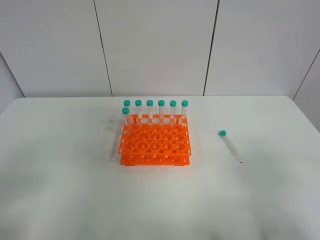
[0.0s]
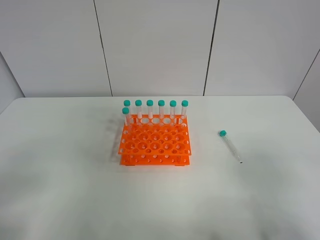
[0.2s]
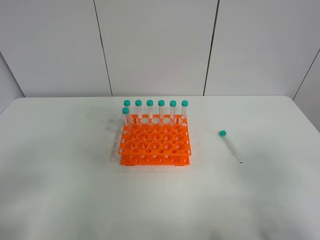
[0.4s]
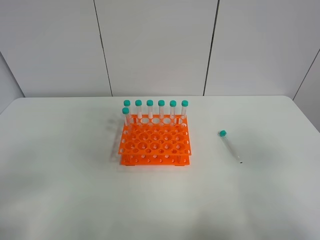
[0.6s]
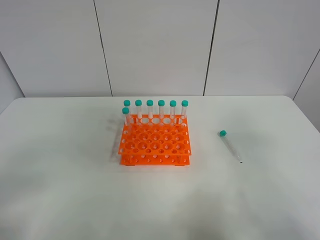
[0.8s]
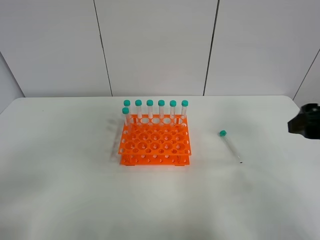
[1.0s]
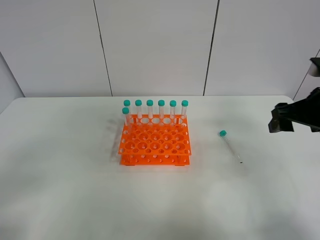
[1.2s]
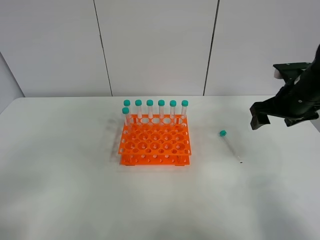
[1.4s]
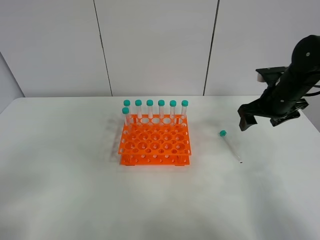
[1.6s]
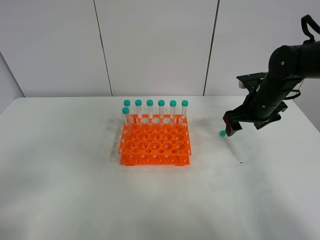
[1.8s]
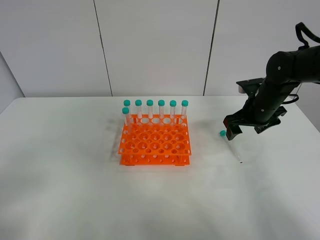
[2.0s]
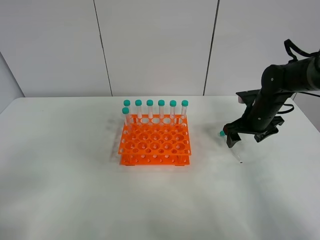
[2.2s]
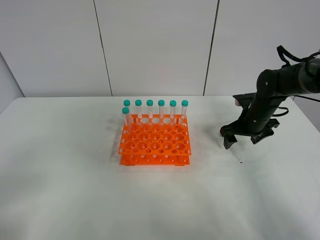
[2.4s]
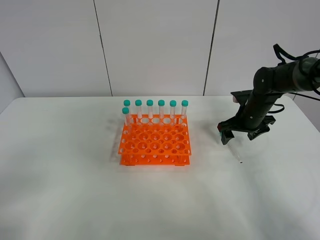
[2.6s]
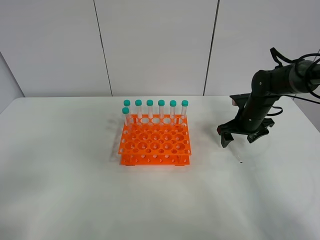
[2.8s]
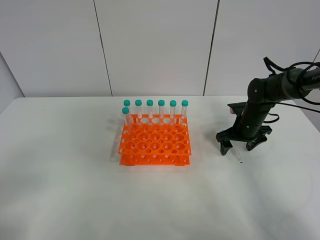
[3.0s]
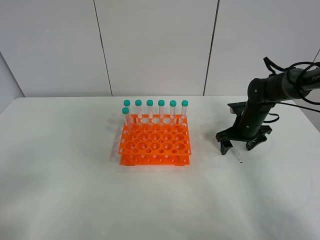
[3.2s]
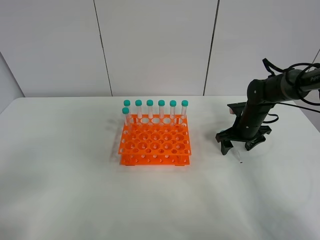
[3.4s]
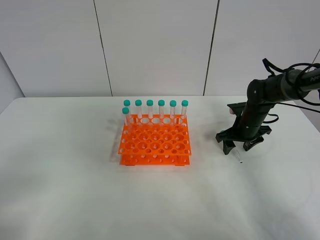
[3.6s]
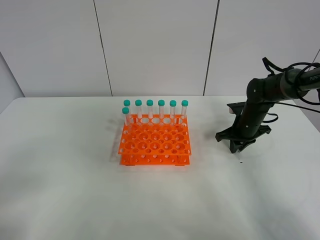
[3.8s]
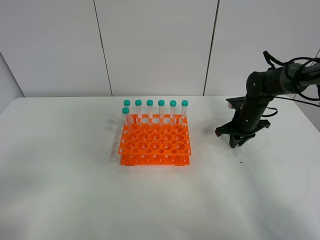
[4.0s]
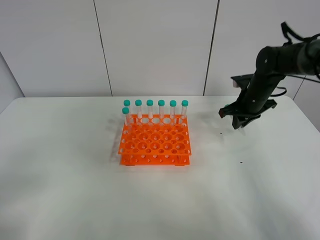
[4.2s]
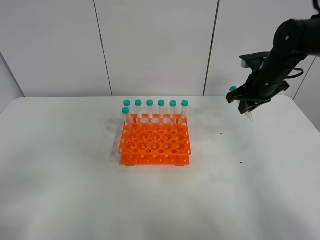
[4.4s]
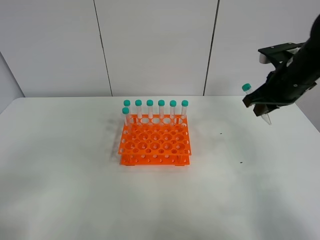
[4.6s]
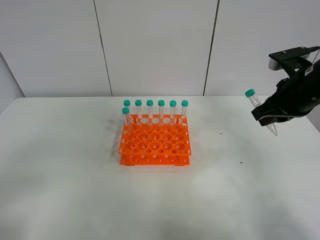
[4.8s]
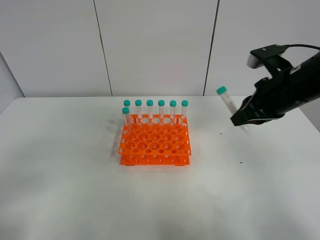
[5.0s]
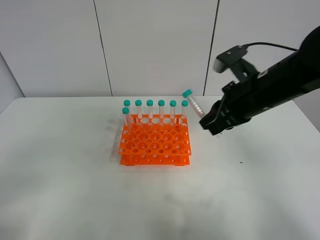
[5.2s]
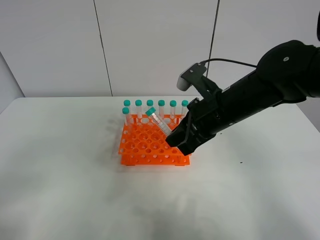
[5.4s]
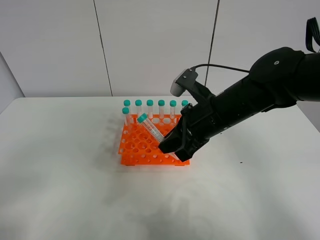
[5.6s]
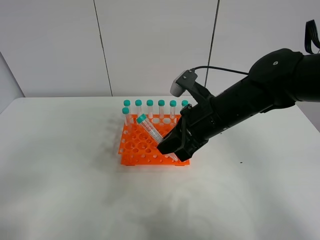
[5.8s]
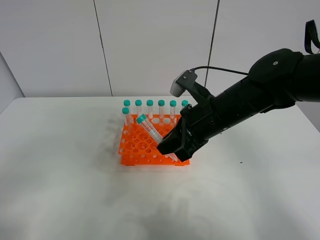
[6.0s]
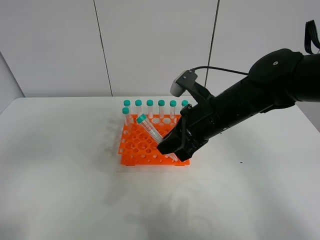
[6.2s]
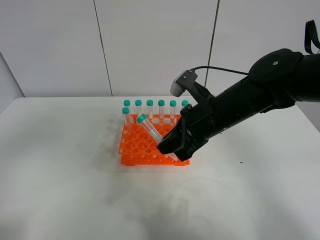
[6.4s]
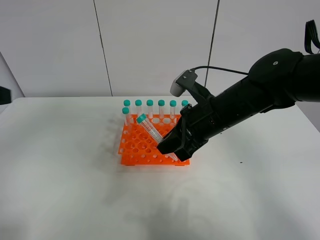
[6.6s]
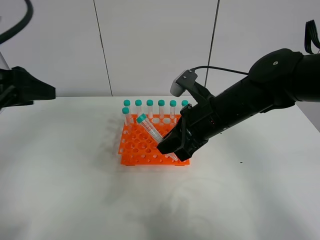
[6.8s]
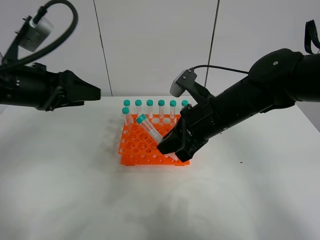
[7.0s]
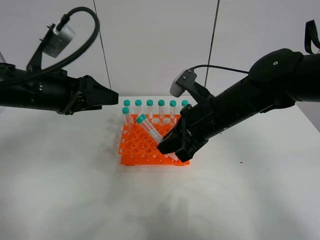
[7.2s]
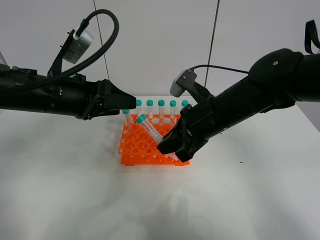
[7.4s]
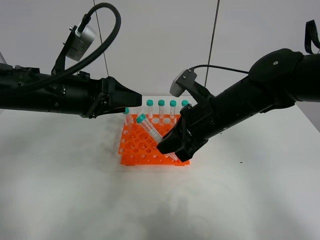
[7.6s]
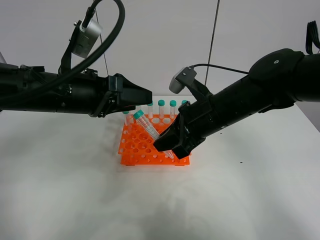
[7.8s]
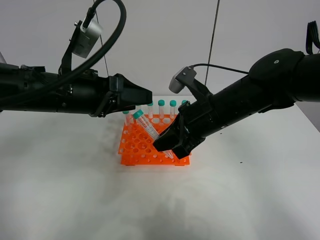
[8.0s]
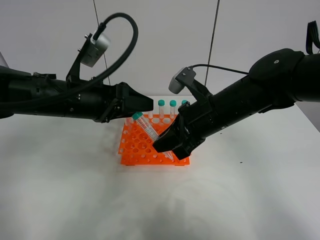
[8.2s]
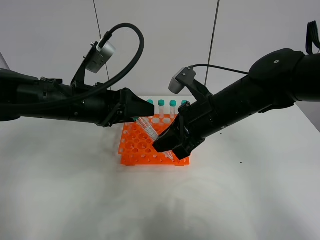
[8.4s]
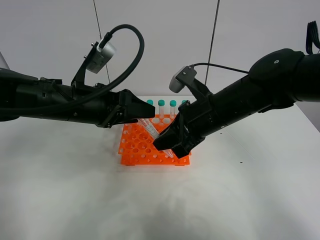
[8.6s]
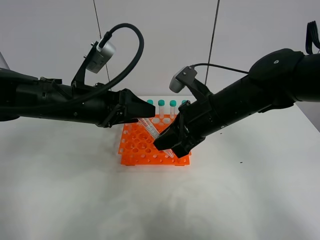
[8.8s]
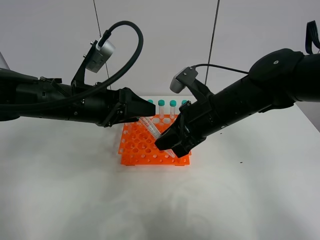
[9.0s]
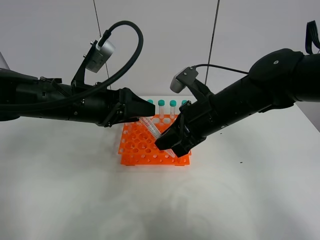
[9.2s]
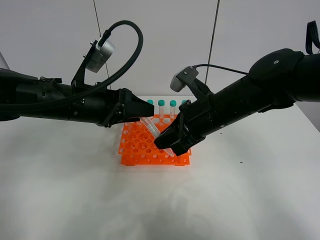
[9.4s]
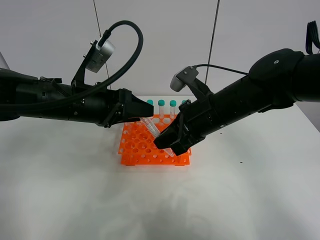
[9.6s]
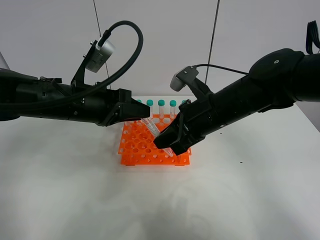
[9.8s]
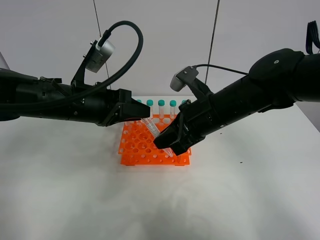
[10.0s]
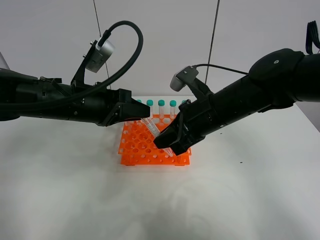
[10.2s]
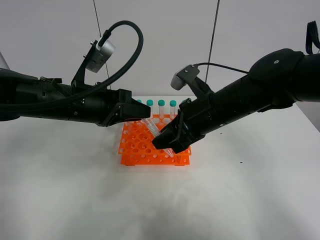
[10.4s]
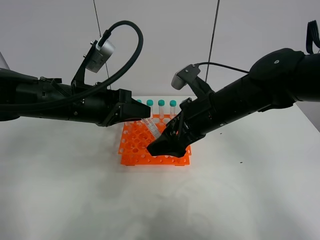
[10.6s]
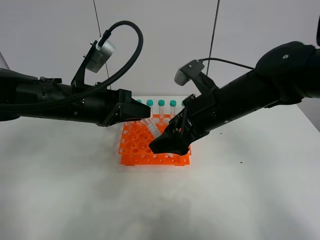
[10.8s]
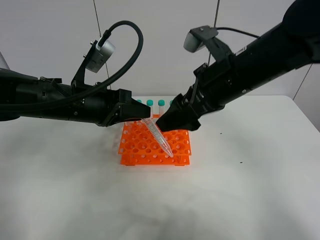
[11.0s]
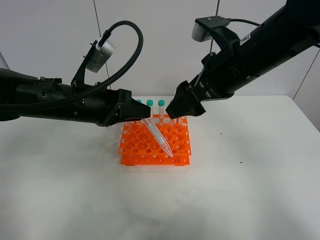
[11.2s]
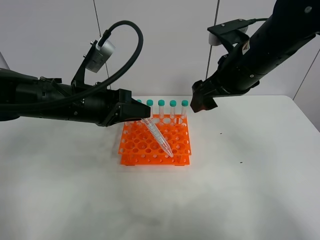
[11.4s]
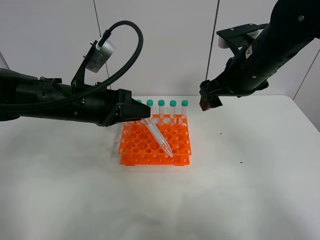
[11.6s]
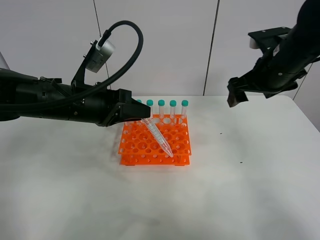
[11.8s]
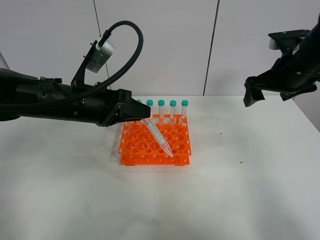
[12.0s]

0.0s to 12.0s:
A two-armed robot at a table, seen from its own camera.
Task of the whole recording: Put the test tube on the table back onto the test tube rack.
Step, 0.0s to 3.8s: Pick up the test tube with the right gripper.
Step, 4.0s to 10.6s: Move the test tube from the right gripper to the left gripper.
0.0s to 1.6s: The right gripper is displaced forward by roughly 35 cm.
1.6s to 3.0s: The right gripper moves downward, about 10 cm.
3.0s to 4.4s: The right gripper moves upward, about 15 cm, and closes its fingers.
4.4s to 6.0s: The right gripper heads to the left and backward, covering about 20 cm.
6.0s to 7.6s: The left gripper shifts about 30 cm forward and to the right.
7.6s to 9.0s: The grippers stay close to where they were, moving slightly.
9.0s to 10.4s: The right gripper opens its fingers. Meanwhile the left gripper closes.
10.4s to 12.0s: The right gripper moves to the right and forward, roughly 20 cm, and opens its fingers.

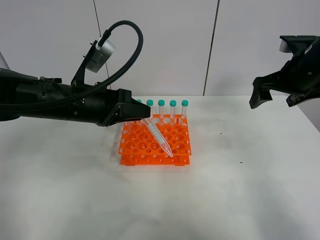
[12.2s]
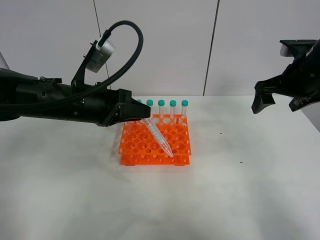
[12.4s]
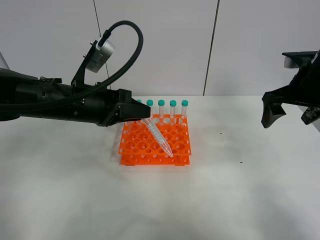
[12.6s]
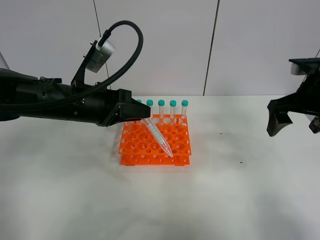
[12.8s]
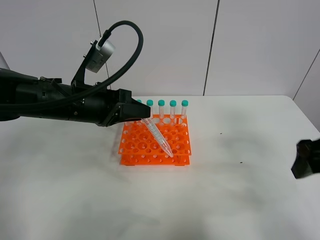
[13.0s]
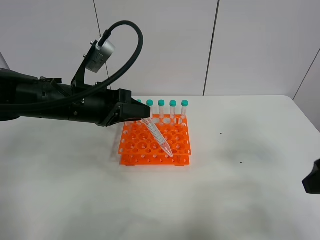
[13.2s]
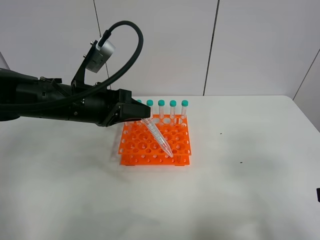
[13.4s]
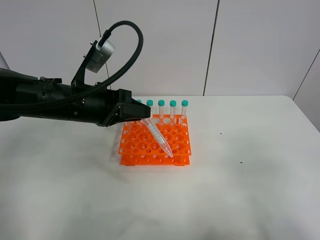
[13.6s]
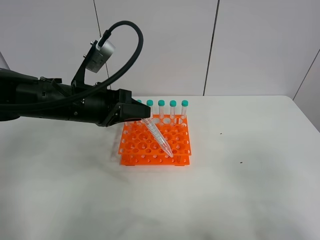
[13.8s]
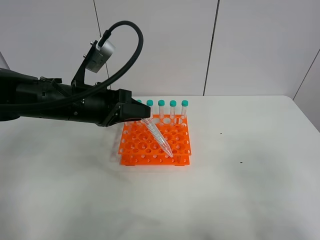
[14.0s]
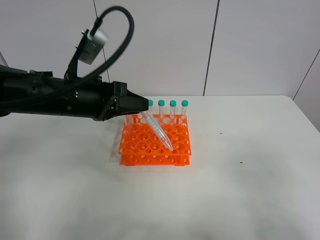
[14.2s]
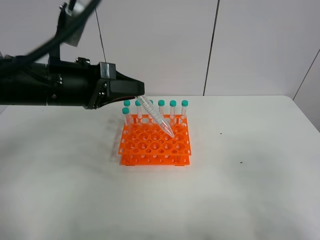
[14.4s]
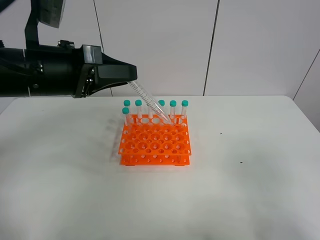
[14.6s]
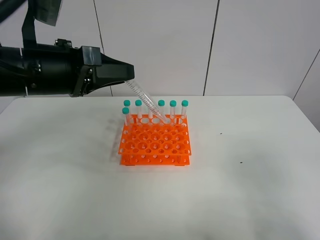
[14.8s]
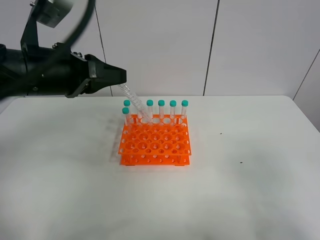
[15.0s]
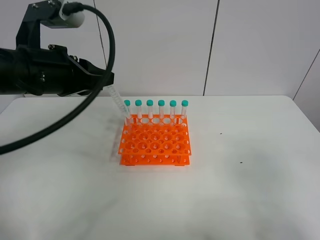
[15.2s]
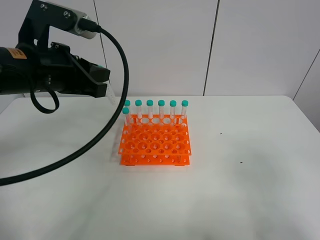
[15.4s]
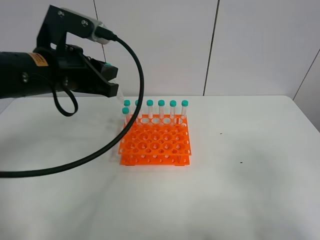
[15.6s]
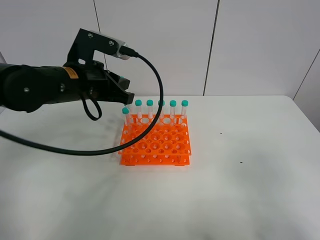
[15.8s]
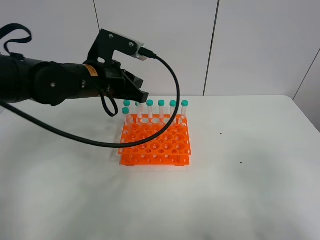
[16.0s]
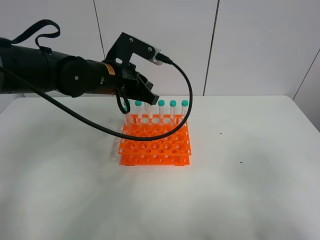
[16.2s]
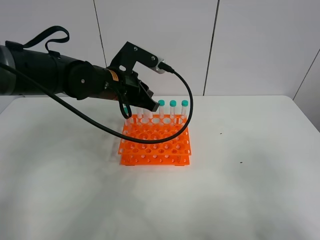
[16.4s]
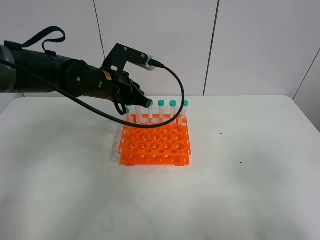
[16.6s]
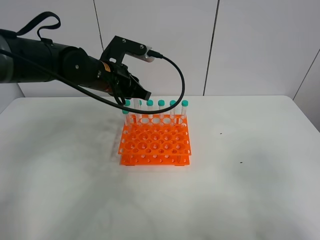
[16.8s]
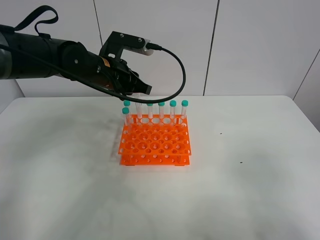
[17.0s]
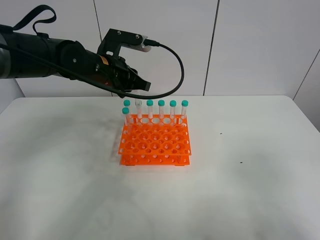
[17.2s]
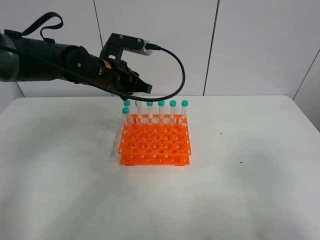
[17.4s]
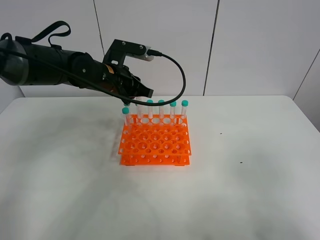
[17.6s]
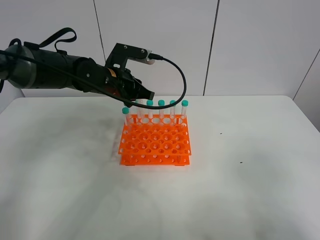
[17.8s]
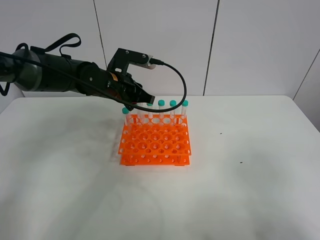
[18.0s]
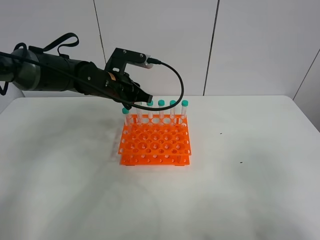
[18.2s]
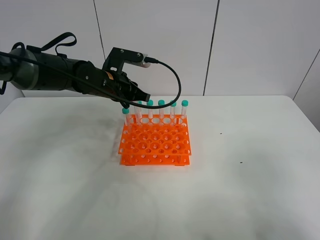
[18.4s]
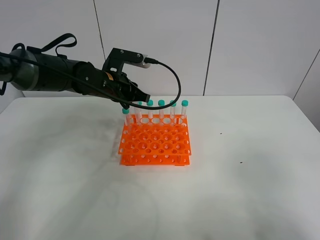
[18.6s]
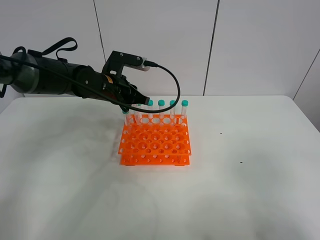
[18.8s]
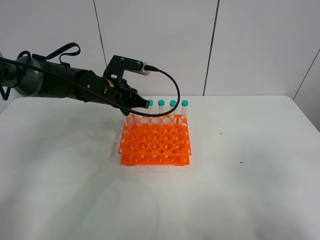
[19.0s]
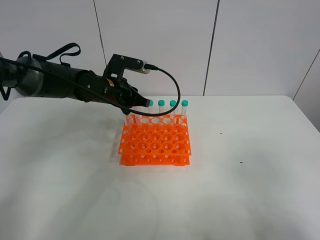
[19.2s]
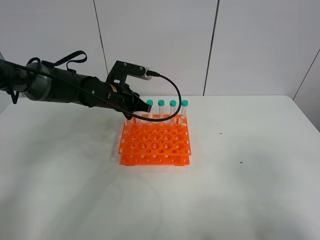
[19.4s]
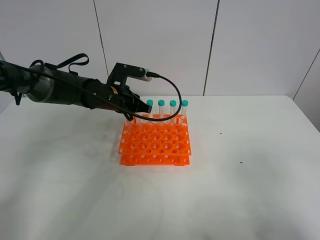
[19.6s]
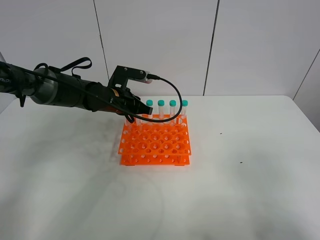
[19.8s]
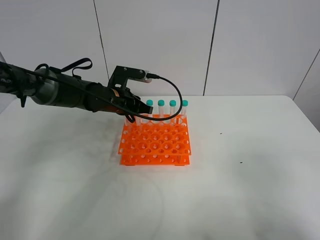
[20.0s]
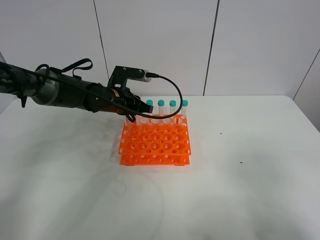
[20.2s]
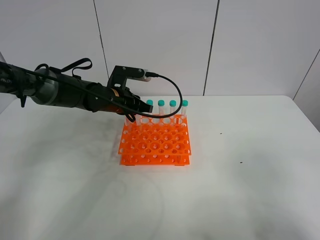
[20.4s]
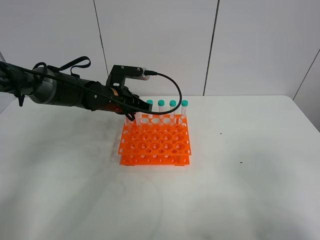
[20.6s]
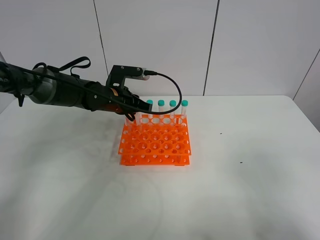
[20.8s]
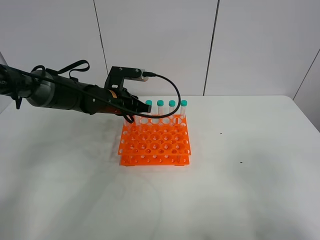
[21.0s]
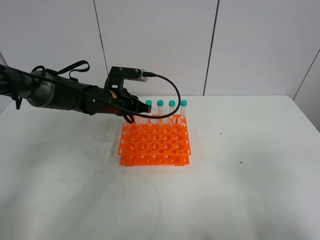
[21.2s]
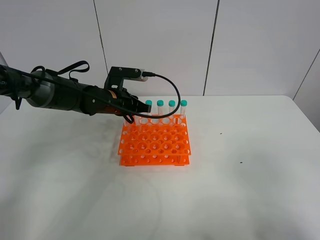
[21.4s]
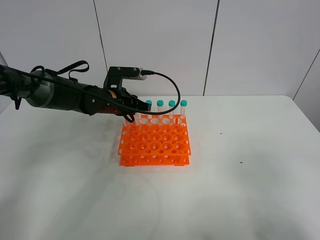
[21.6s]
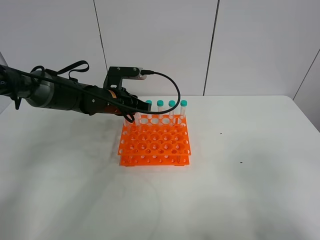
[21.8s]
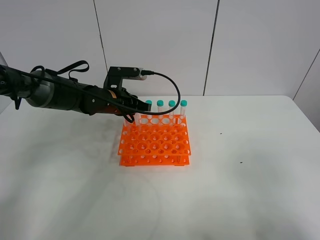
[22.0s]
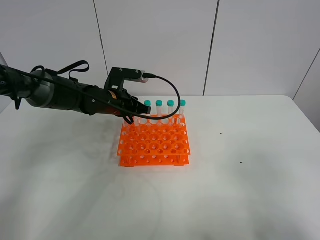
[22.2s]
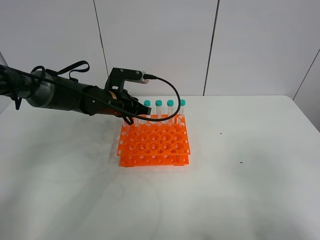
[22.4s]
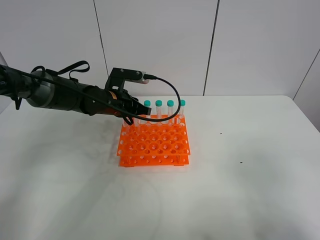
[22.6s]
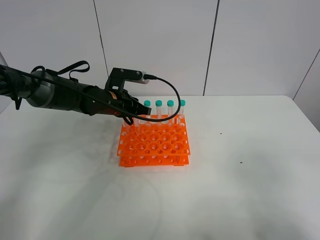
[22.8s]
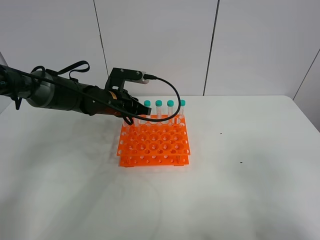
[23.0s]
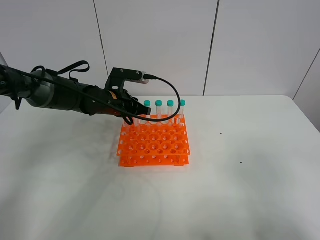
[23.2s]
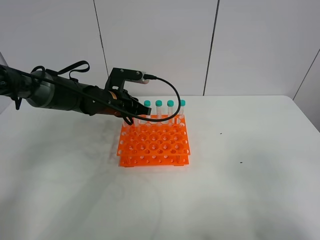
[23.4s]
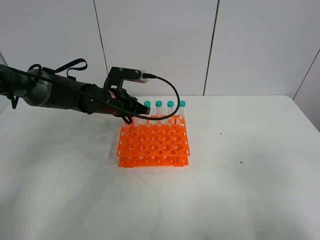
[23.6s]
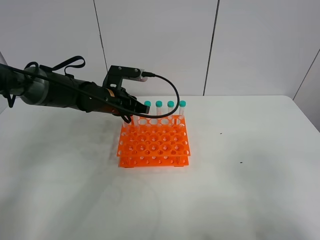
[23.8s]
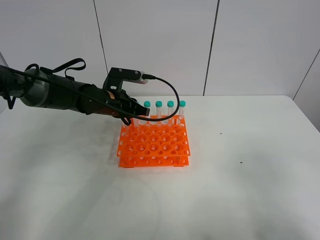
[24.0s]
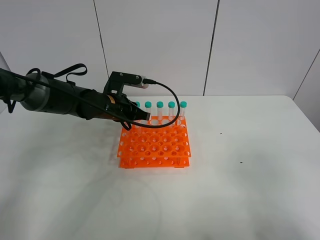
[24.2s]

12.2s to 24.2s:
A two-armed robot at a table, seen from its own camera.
Task of the whole recording: Put the test tube on the table back onto the test tube rack.
12.2s to 13.8s: The right gripper shifts approximately 35 cm backward.
13.8s to 15.2s: The left gripper is displaced upward by about 10 cm.
15.2s to 16.6s: The left gripper moves forward, downward and to the right, some 15 cm.
16.6s to 18.2s: There are only small adjustments of the grippers.
18.2s to 19.8s: The grippers stay close to where they were, moving slightly.
19.8s to 21.2s: Neither gripper changes place.
21.2s to 22.6s: Neither gripper changes place.
22.6s to 24.2s: The grippers make only small movements.
